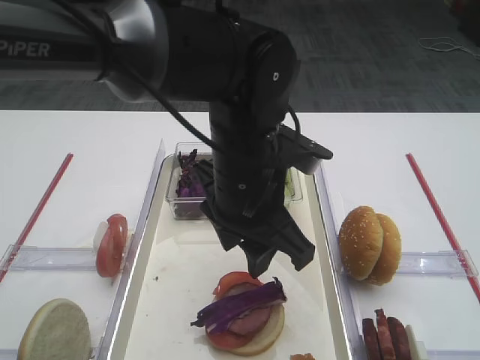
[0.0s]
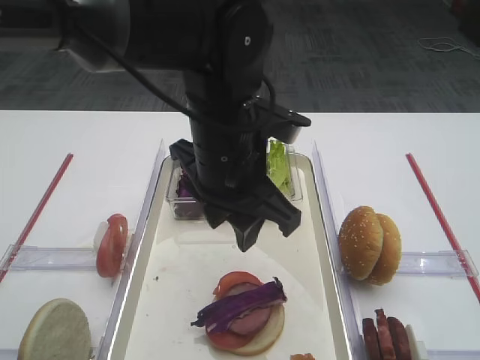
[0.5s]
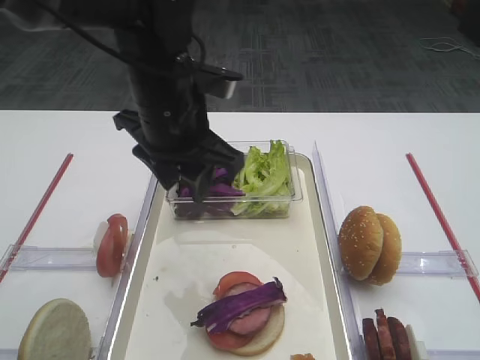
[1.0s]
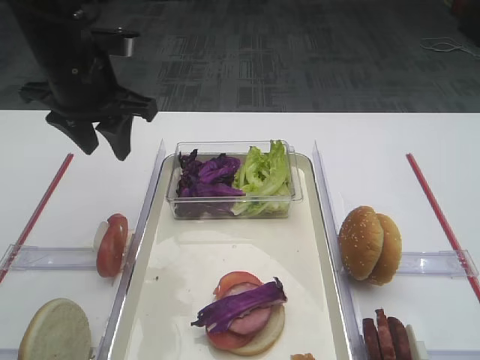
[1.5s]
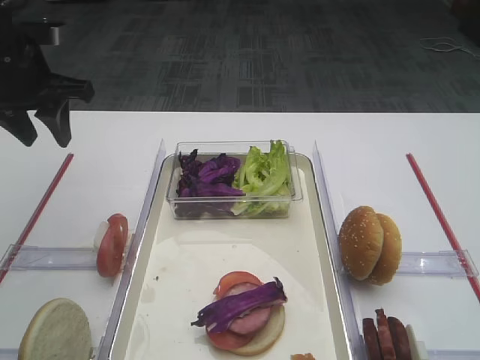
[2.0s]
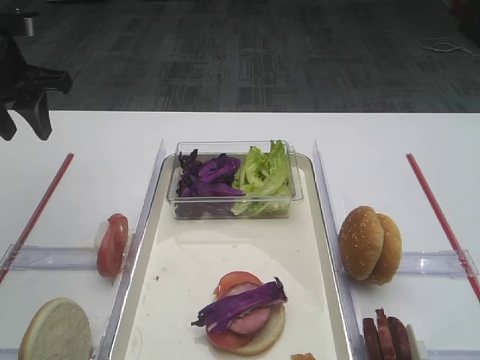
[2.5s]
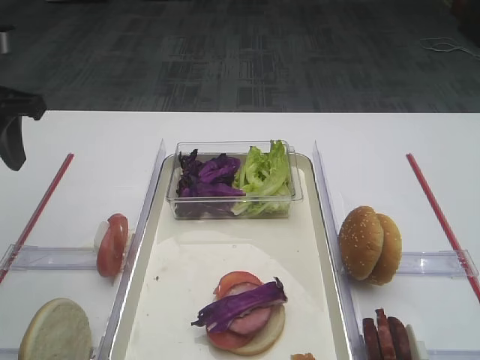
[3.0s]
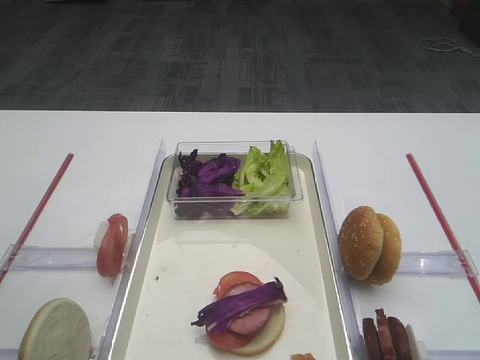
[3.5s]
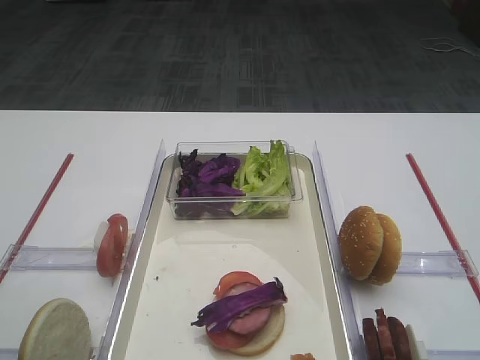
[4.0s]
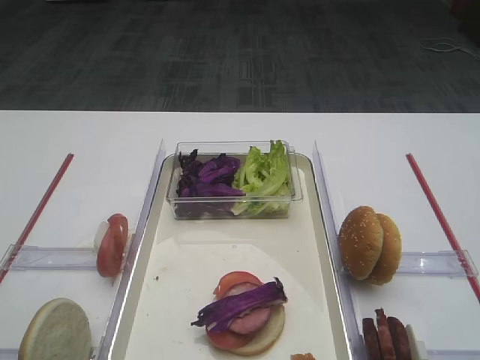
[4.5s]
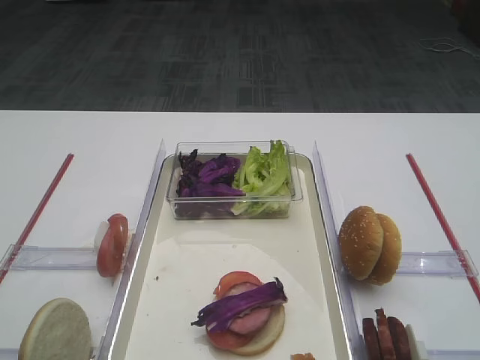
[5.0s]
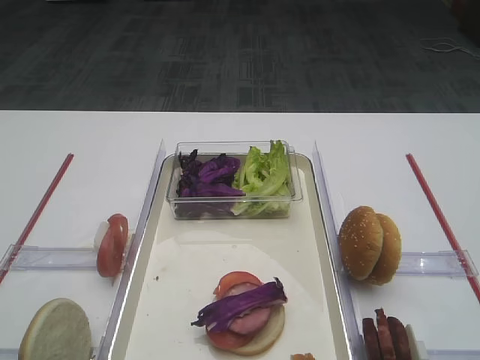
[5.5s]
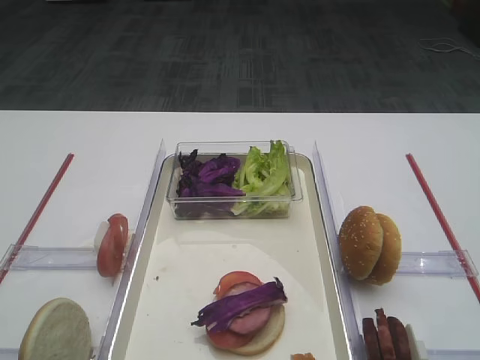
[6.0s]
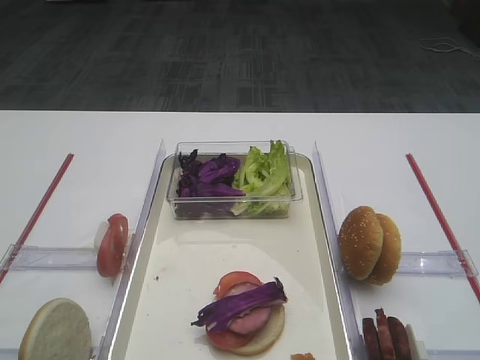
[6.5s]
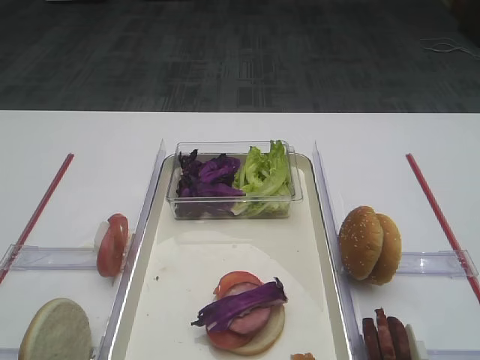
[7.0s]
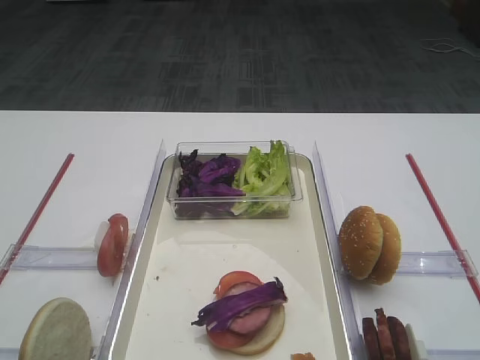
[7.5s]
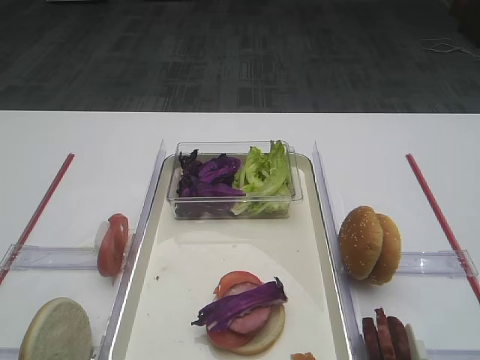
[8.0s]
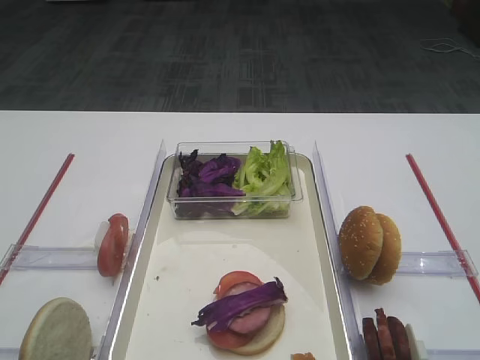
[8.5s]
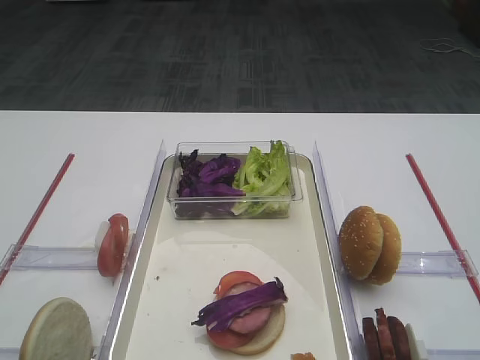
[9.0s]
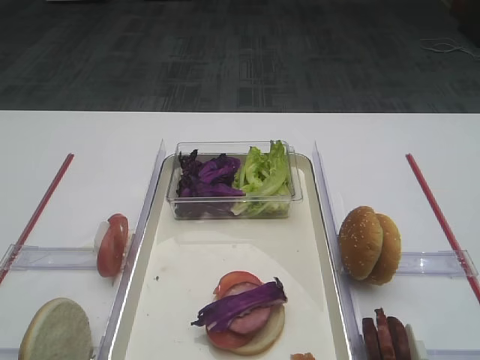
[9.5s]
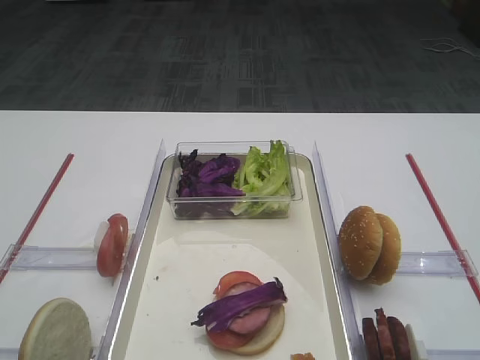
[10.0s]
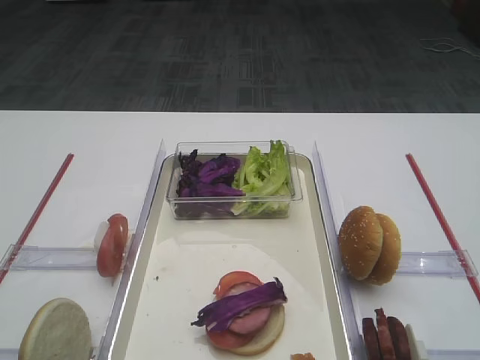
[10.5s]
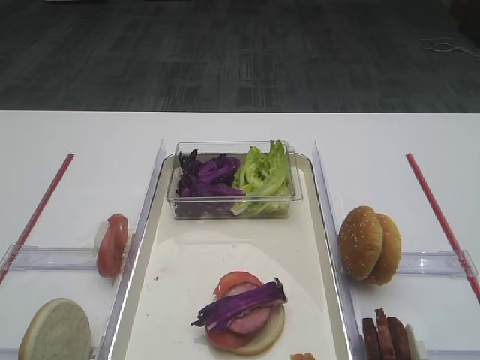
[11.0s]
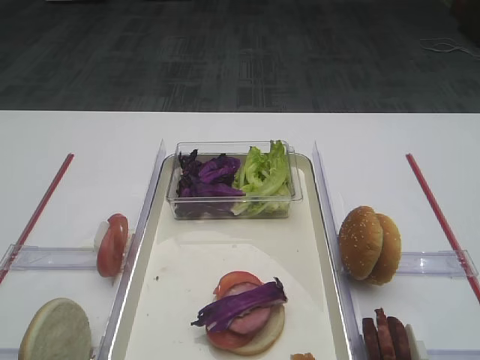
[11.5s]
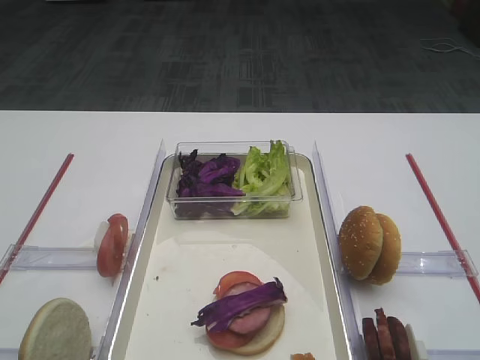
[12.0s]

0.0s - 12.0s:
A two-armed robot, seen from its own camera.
0.0s - 2.0s: The left gripper moves to the left and forward, approximately 30 cm.
2.0s - 4.0s: The left gripper is displaced backward by roughly 25 cm.
8.0s - 12.0s: Both grippers stay put.

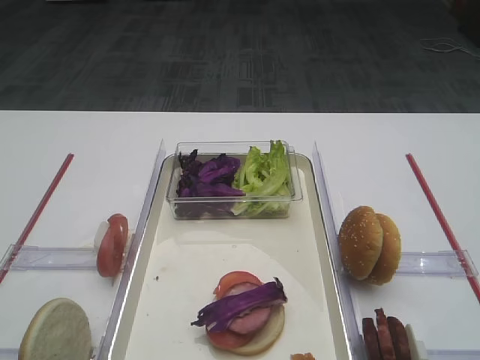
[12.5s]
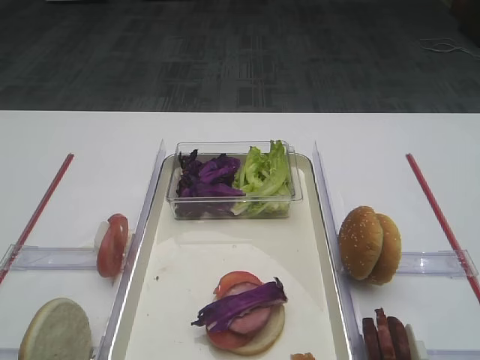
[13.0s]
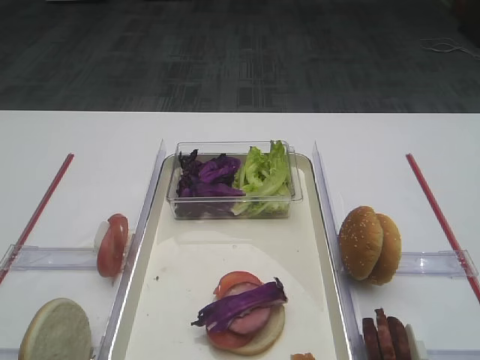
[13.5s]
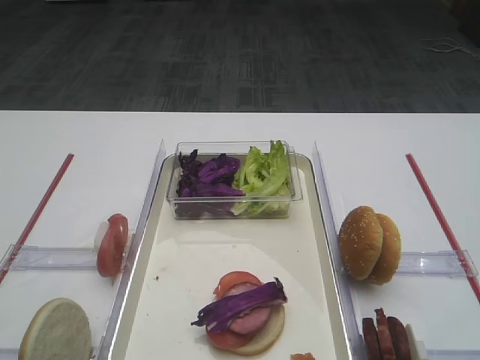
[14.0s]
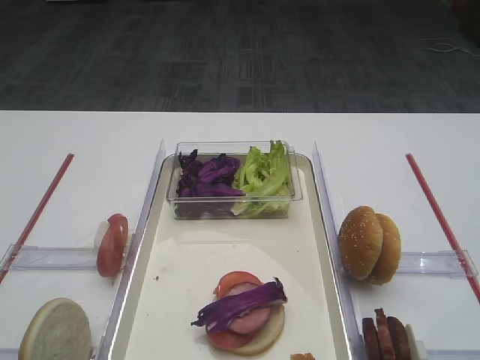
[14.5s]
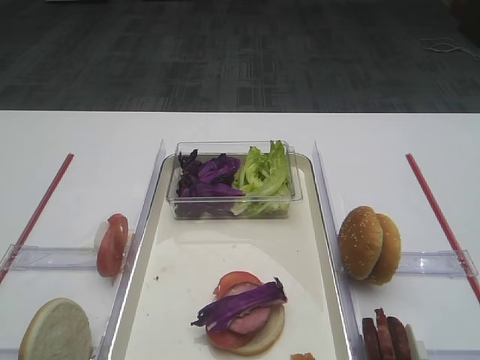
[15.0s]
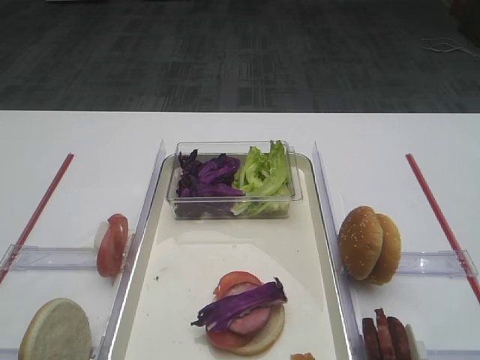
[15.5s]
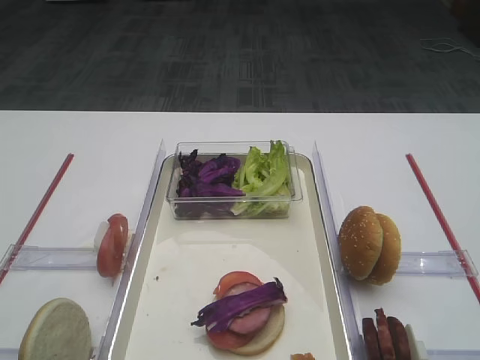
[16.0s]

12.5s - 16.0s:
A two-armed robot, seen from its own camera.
14.5s - 16.0s: Both grippers stay put.

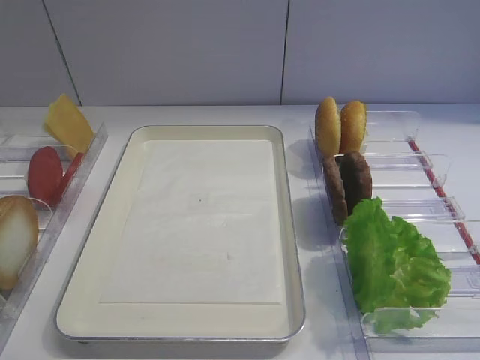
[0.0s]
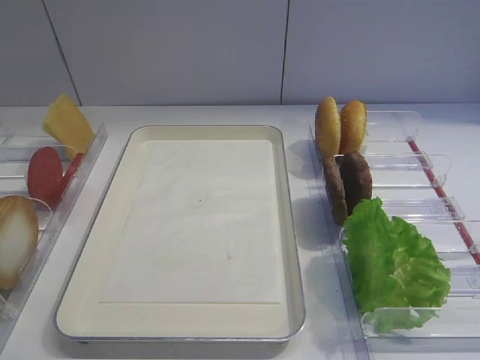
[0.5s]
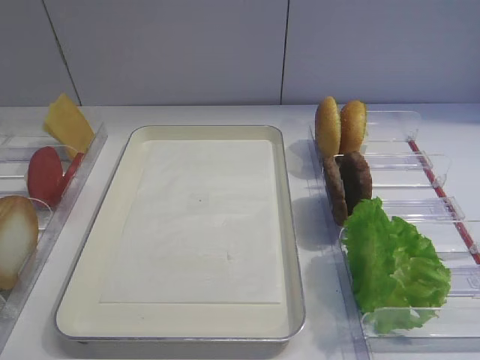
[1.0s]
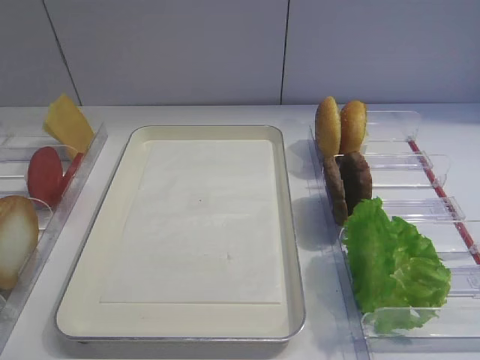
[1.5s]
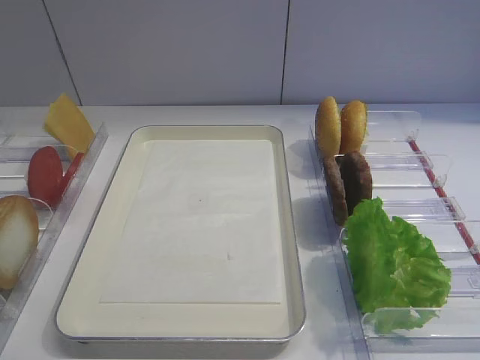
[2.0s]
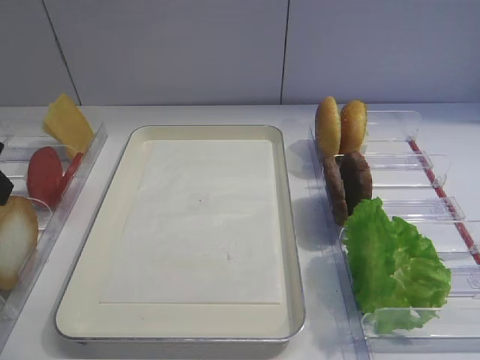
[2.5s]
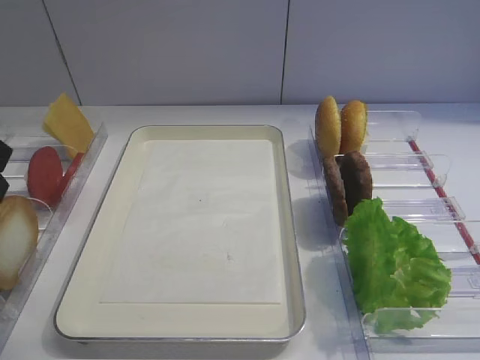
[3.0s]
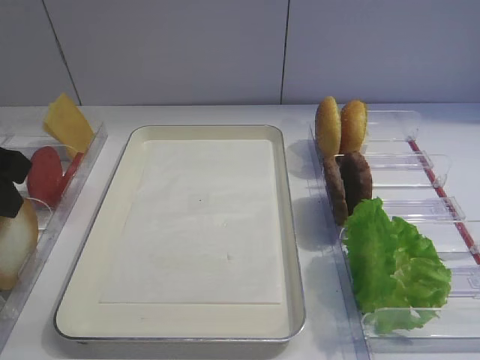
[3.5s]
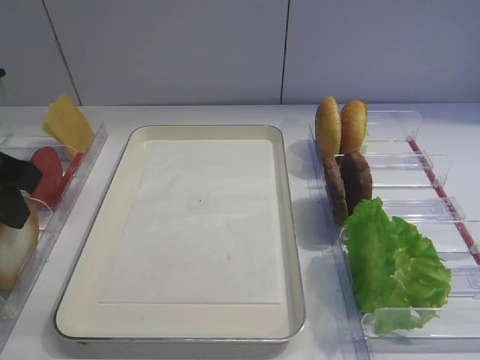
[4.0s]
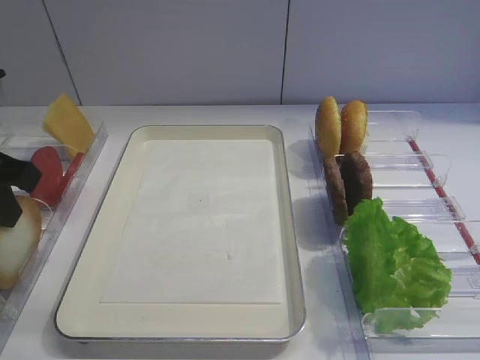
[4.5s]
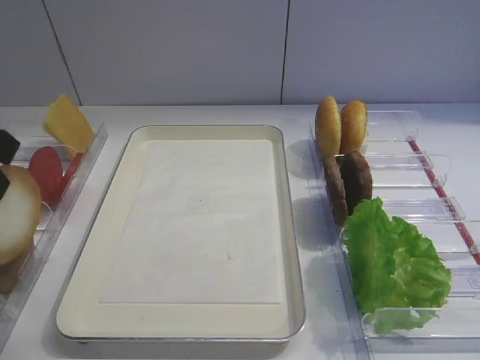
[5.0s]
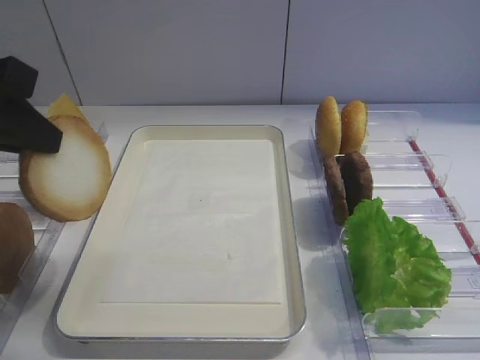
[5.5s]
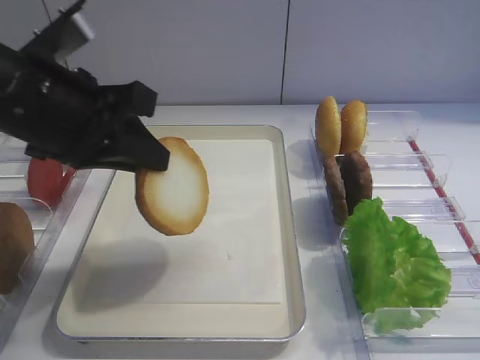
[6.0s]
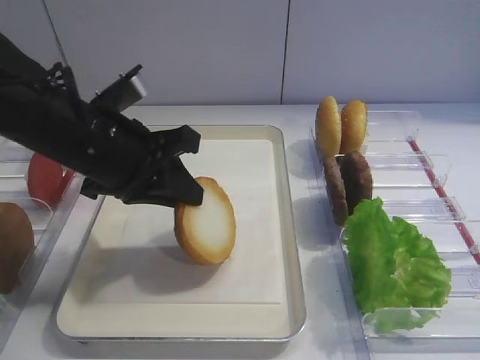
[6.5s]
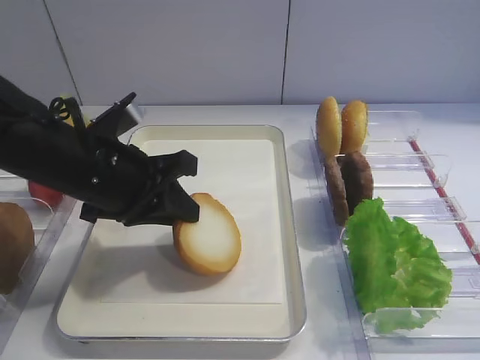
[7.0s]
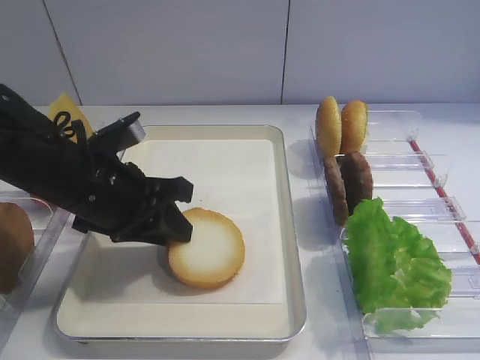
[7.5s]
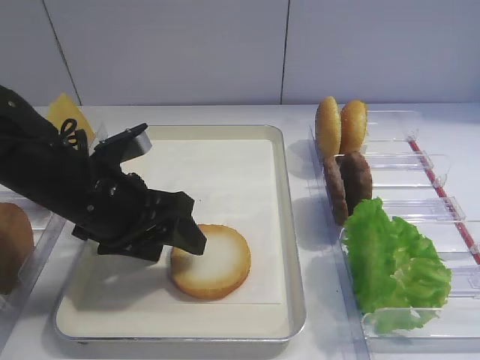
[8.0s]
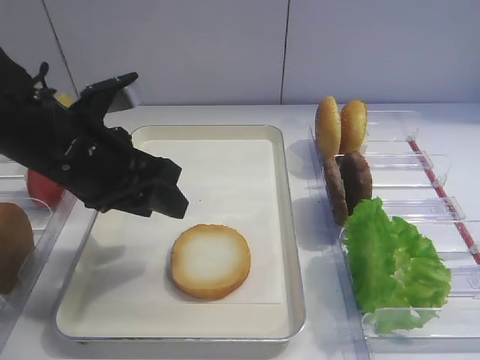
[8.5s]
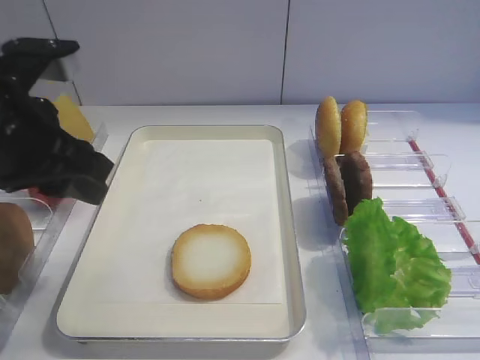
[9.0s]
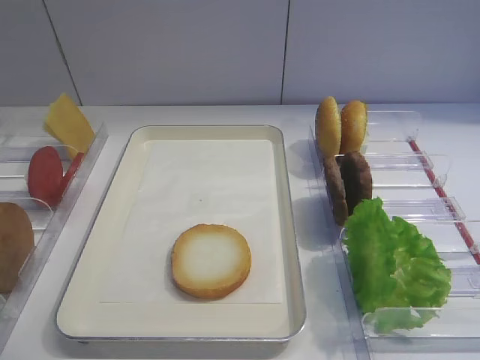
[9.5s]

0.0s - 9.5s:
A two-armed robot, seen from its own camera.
Step, 0.0s - 5.0s: Pick up the bread slice with the left gripper.
Step, 5.5s - 8.0s: Place the bread slice on the tray with the left gripper.
2.0s - 4.0s: The left gripper heads forward and downward, covering some 10 cm, and closes.
4.0s - 5.5s: The left gripper is displaced to the right by some 5 cm.
5.5s - 7.5s: The left gripper goes some 15 cm downward, and opens its fingers.
7.5s - 9.5s: The left gripper moves backward, upward and to the left, approximately 25 cm, and closes.

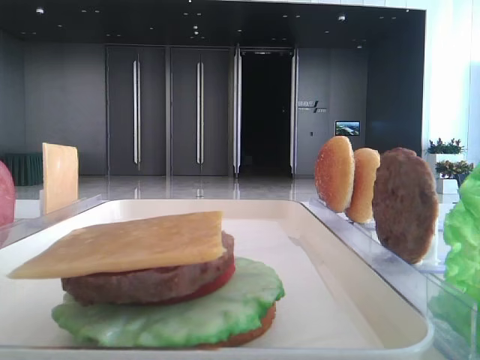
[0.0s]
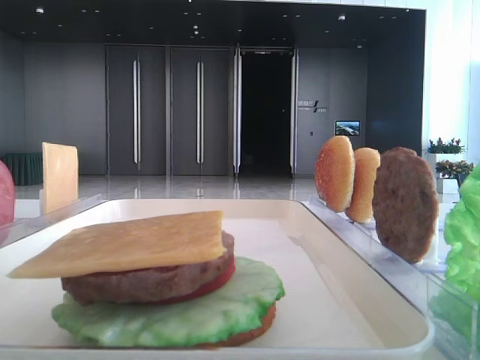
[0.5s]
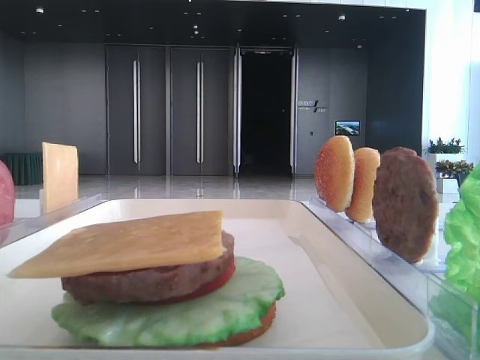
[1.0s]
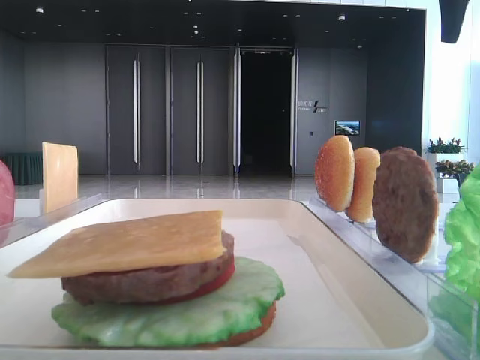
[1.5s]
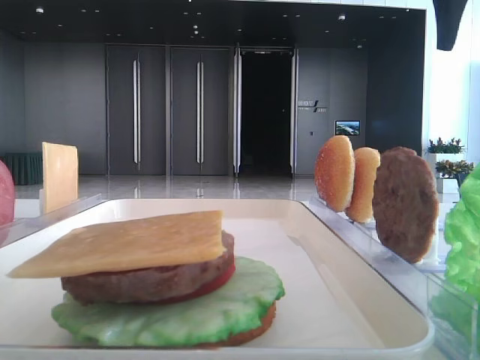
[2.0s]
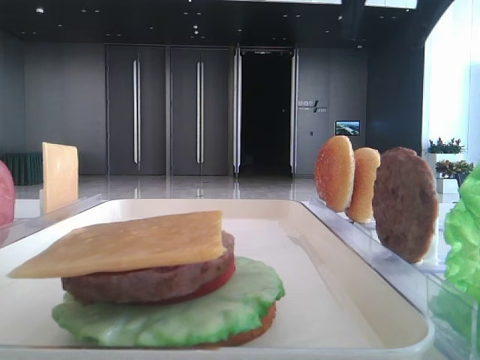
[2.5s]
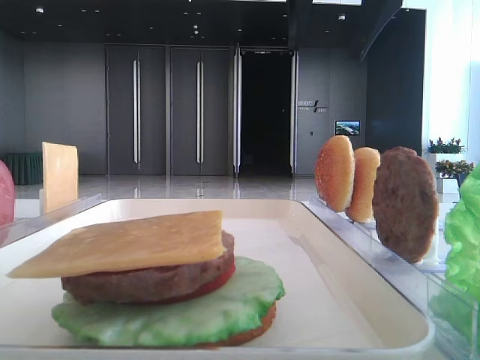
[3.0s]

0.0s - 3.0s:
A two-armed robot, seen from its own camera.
0.0s - 1.5s: The right gripper heads forward, covering approximately 20 cm.
1.5s - 3.0s: The right gripper goes some 15 cm to the left.
